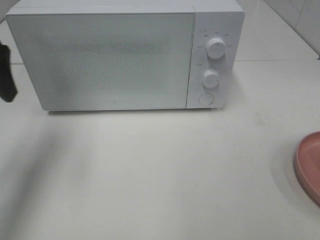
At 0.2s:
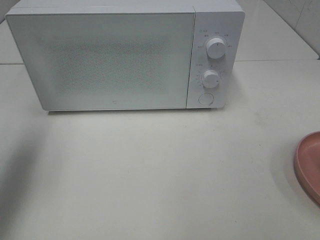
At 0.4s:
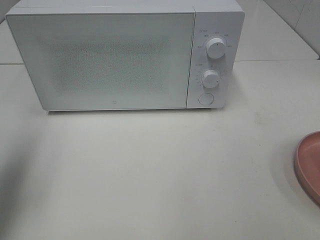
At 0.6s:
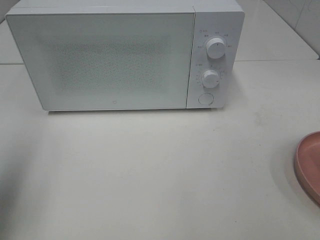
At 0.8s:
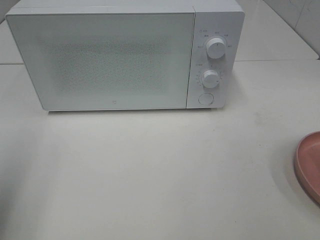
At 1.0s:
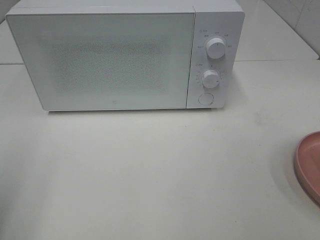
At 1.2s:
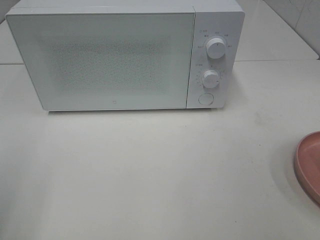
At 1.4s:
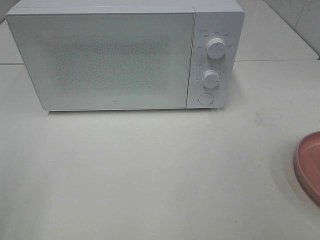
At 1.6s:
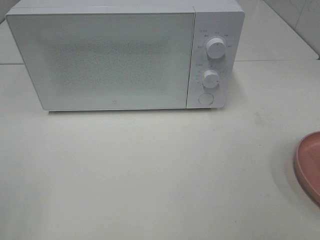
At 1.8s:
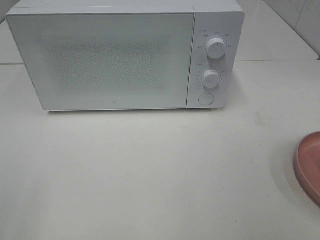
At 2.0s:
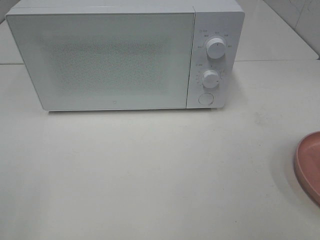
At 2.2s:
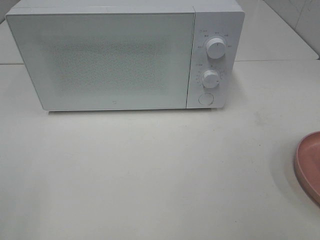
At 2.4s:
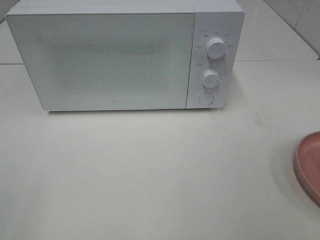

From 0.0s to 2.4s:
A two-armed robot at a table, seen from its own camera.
Task of the whole recording: Heat the burger.
From 0.0s to 1.2s: The left gripper goes approximately 20 cm backward.

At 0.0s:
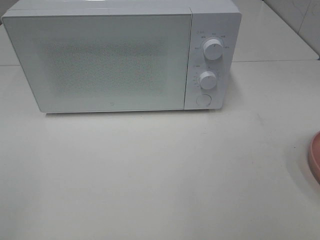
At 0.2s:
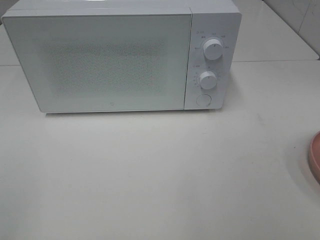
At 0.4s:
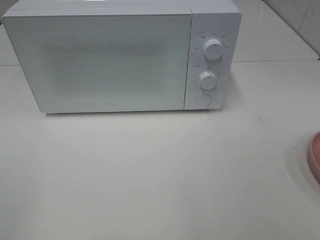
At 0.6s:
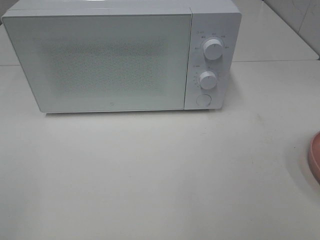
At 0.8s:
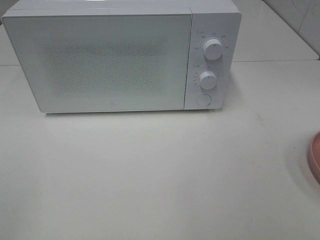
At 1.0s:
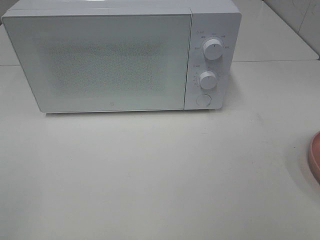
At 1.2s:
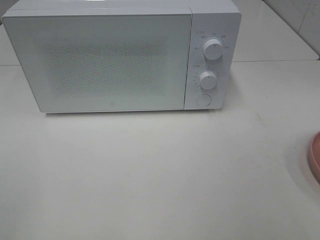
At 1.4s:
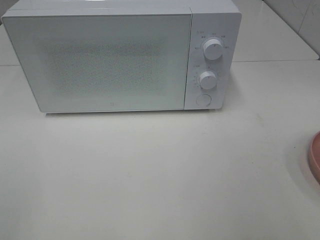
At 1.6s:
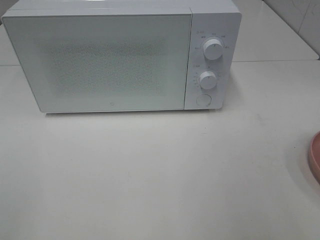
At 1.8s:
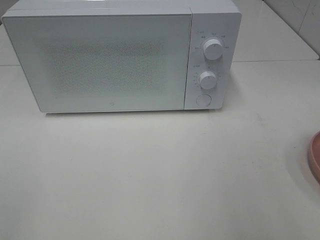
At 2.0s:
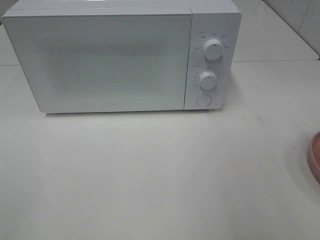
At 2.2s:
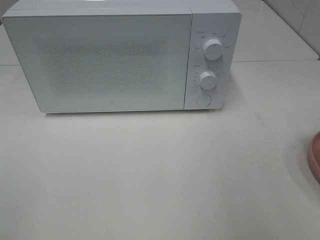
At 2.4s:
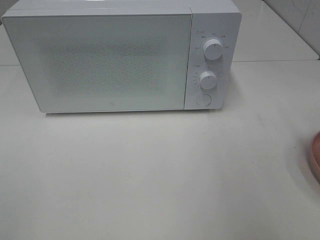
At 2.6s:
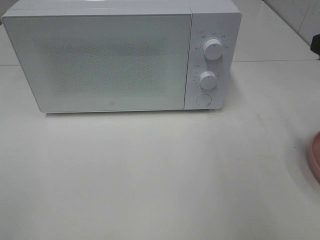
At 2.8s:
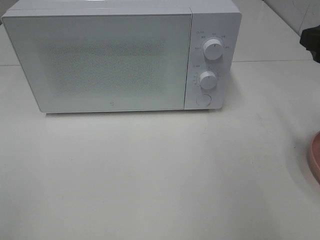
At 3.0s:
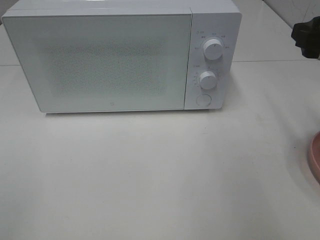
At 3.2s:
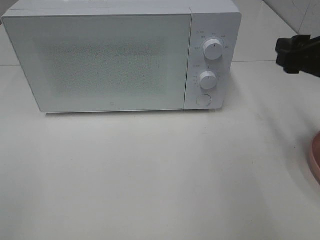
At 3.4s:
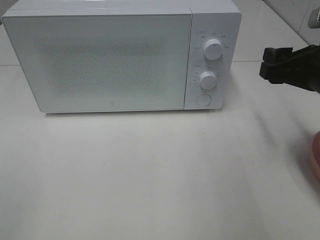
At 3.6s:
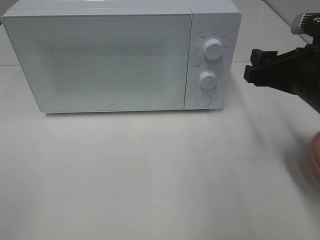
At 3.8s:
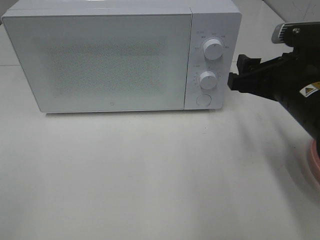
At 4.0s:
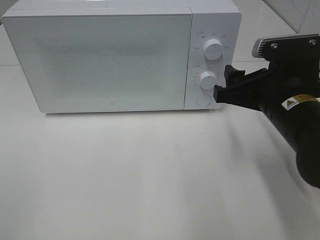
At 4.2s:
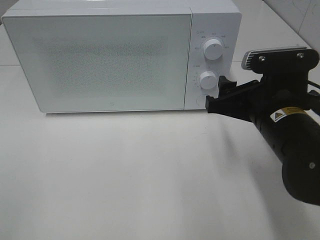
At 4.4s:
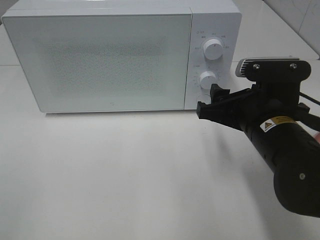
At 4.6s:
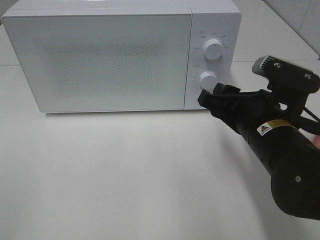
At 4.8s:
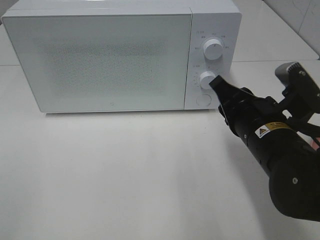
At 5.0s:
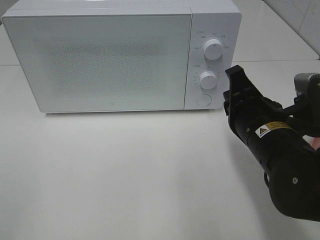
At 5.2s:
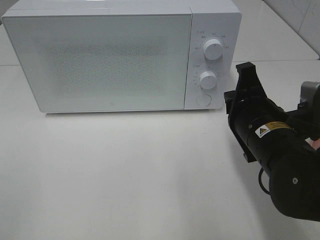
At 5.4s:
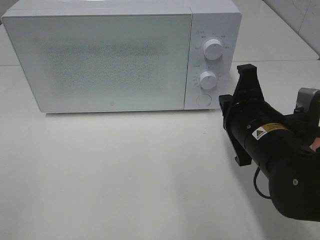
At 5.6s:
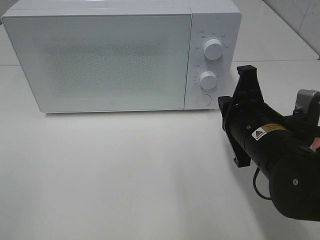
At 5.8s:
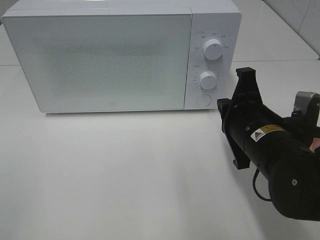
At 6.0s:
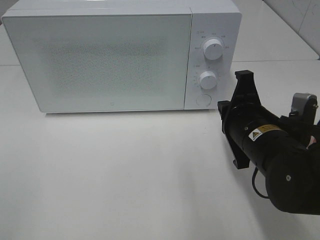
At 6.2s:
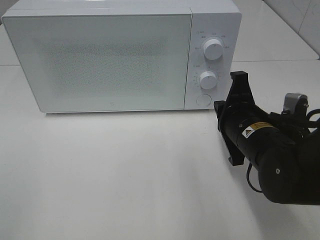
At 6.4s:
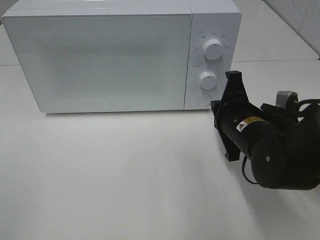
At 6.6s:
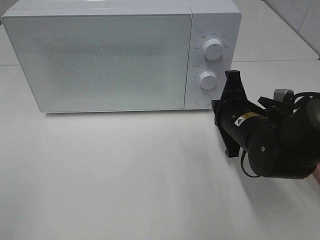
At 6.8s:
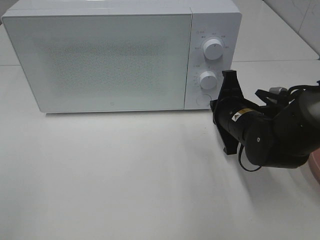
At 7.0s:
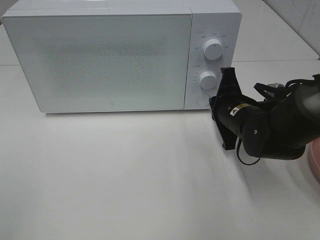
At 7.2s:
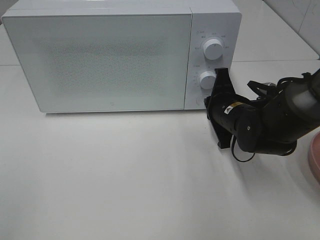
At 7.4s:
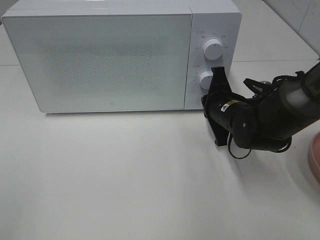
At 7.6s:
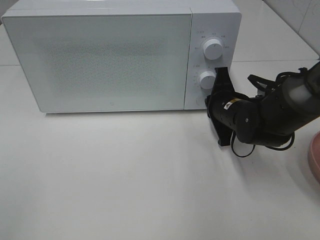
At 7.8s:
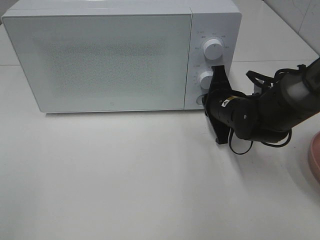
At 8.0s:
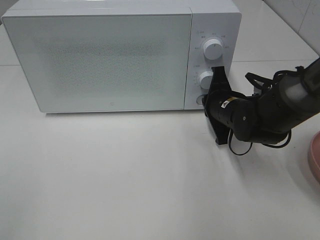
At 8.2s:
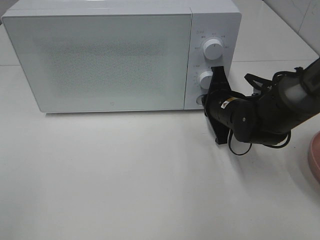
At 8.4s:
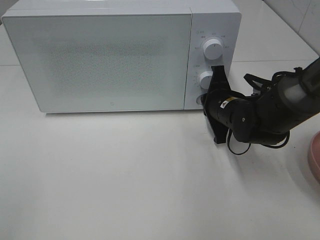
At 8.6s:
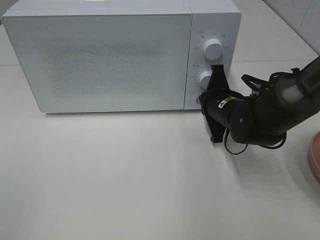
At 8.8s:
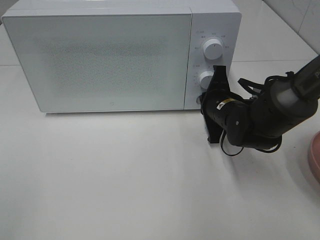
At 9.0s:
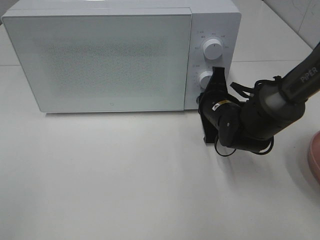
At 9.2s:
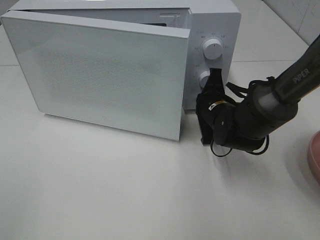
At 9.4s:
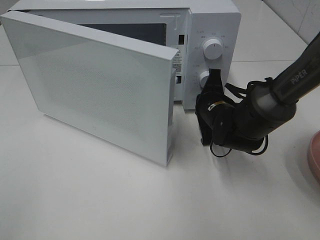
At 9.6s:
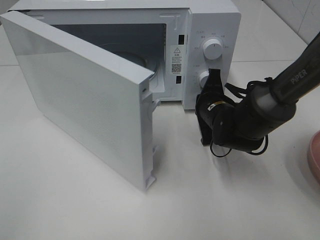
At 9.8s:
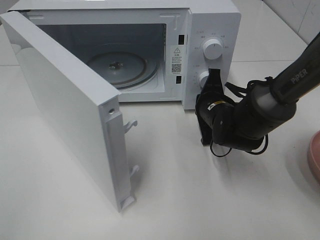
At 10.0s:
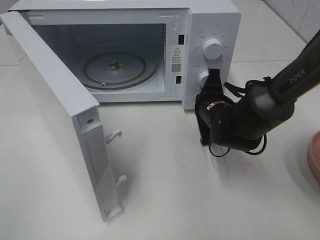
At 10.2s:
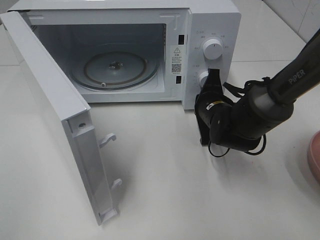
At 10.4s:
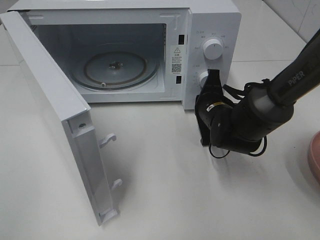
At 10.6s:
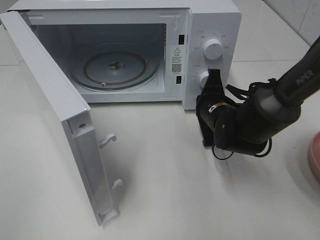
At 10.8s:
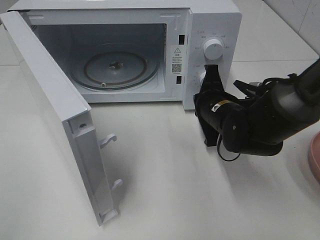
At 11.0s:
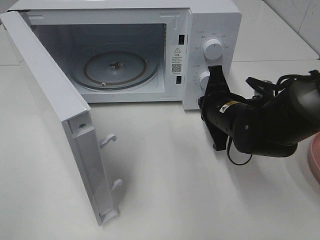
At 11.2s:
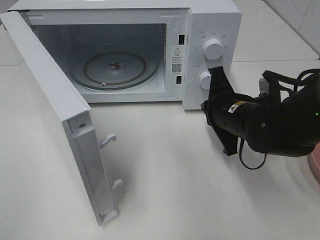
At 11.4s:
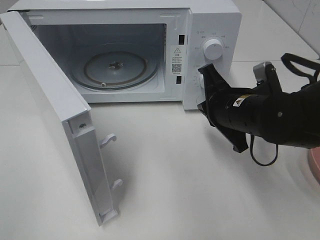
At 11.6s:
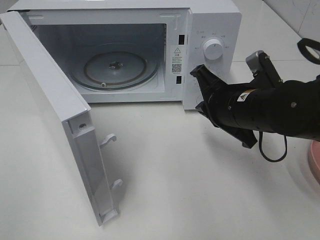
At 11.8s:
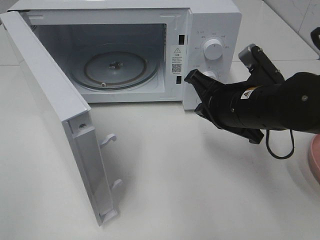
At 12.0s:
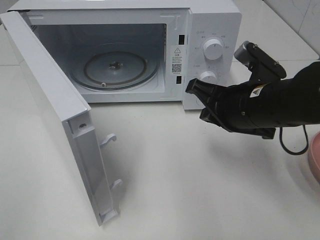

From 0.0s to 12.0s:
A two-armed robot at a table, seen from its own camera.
Task of the whole recording: Heat the burger.
Step, from 0.0s to 10.6s: Right hand: press the switch.
From 1.6s to 3.0s: The right gripper is displaced forward by some 15 cm.
From 3.0s to 4.4s: The right gripper shifts roughly 15 cm to the left and downward.
From 4.4s to 6.0s: The right gripper closes its fingers.
From 6.0s to 7.6s: The right gripper goes about 10 cm forward.
From 7.6s to 9.0s: The grippers stay close to where they were, moving slightly.
From 10.4s to 12.0s: The right gripper is displaced upward and backward by some 15 cm.

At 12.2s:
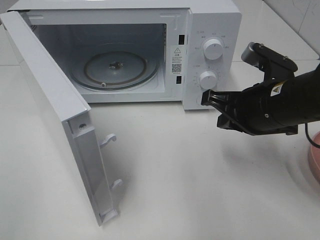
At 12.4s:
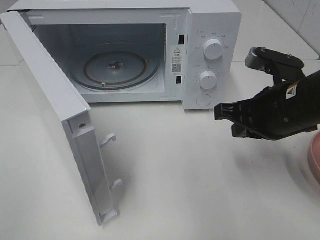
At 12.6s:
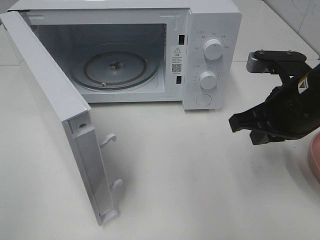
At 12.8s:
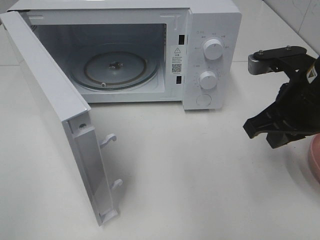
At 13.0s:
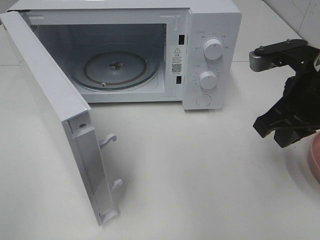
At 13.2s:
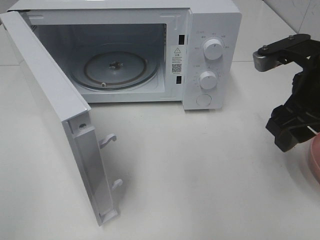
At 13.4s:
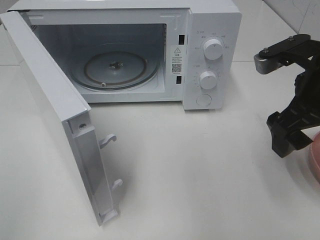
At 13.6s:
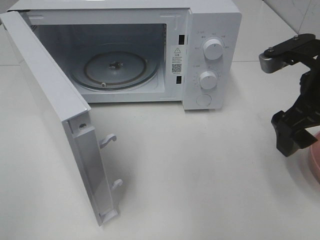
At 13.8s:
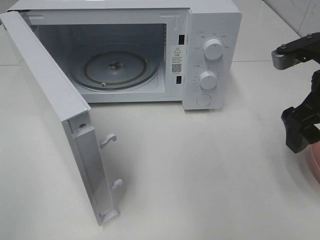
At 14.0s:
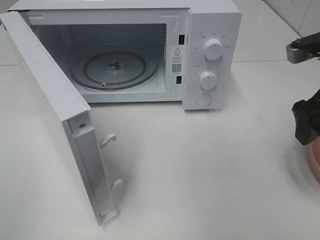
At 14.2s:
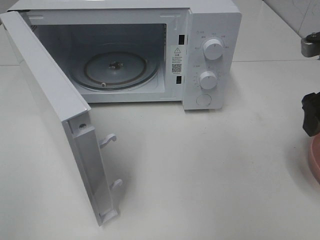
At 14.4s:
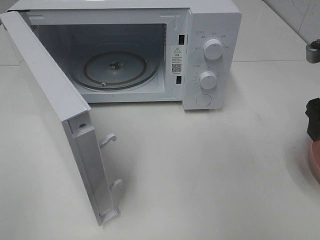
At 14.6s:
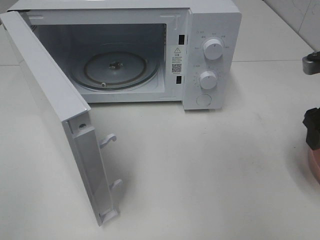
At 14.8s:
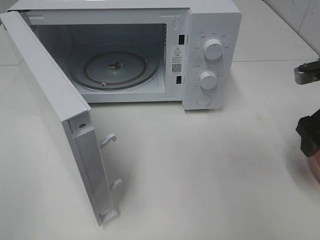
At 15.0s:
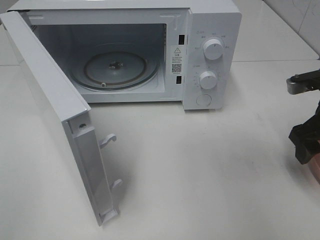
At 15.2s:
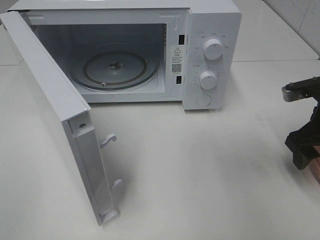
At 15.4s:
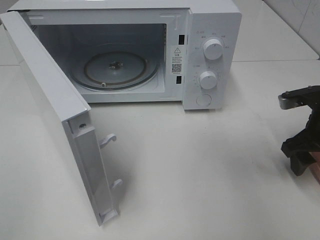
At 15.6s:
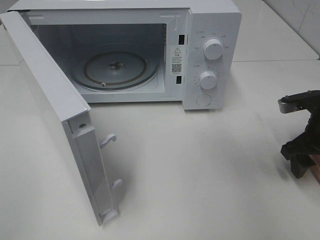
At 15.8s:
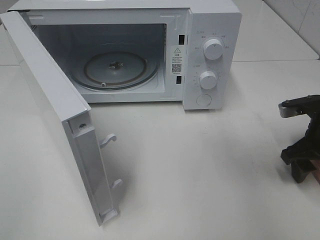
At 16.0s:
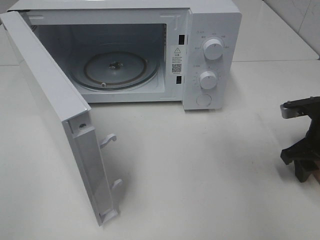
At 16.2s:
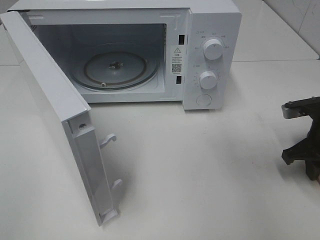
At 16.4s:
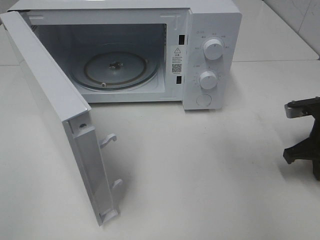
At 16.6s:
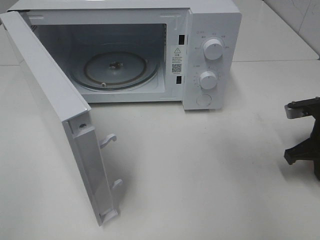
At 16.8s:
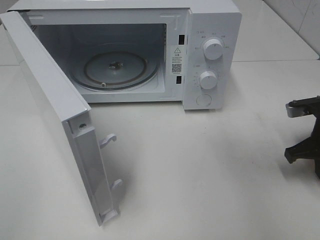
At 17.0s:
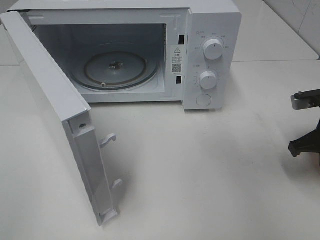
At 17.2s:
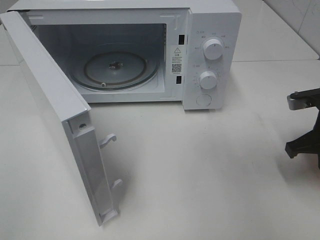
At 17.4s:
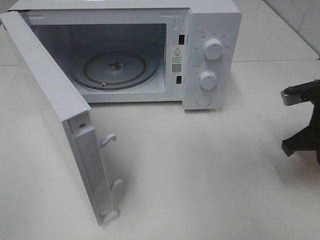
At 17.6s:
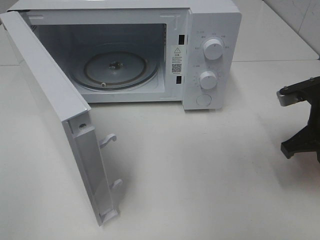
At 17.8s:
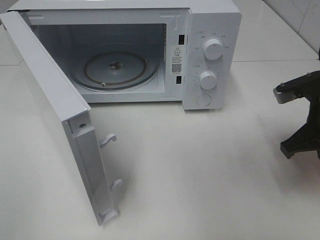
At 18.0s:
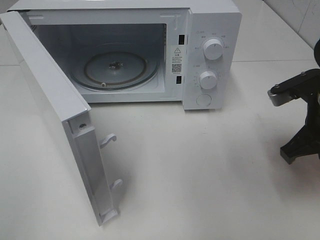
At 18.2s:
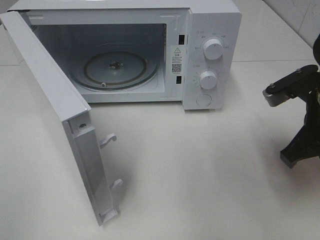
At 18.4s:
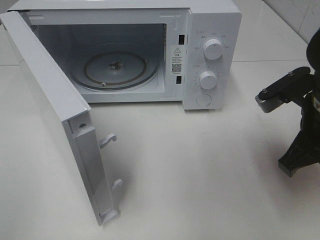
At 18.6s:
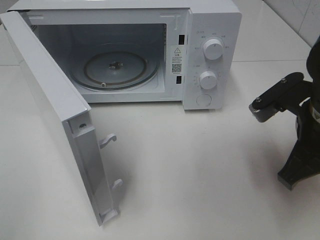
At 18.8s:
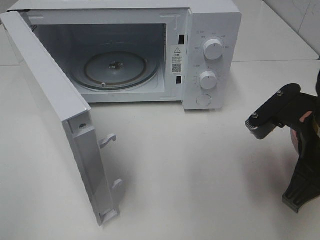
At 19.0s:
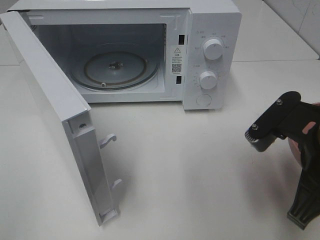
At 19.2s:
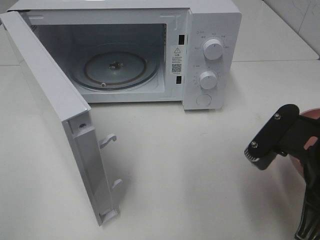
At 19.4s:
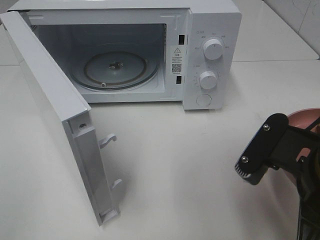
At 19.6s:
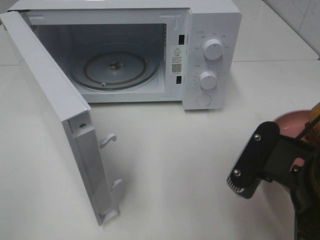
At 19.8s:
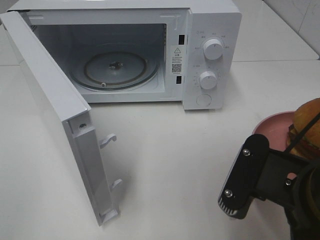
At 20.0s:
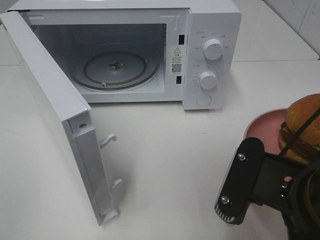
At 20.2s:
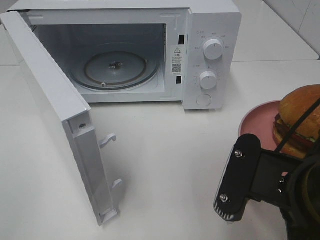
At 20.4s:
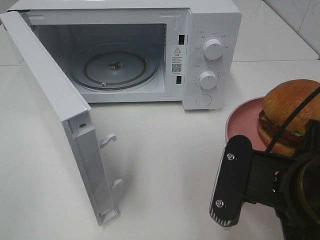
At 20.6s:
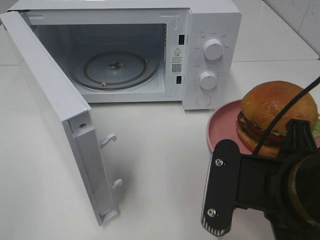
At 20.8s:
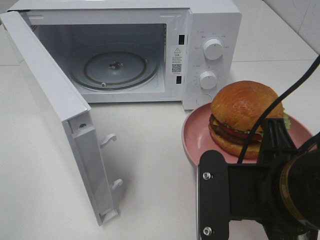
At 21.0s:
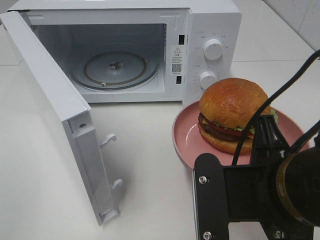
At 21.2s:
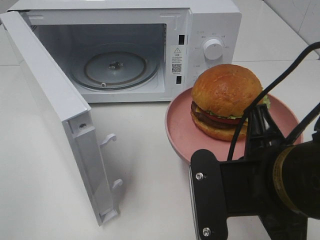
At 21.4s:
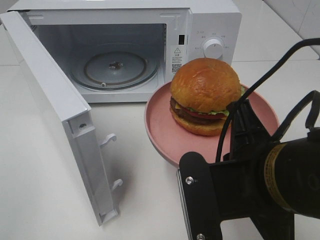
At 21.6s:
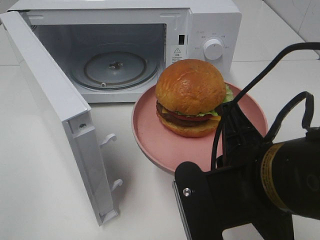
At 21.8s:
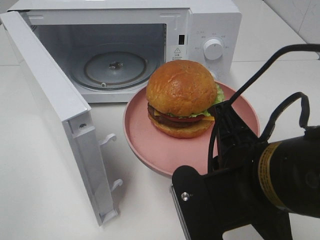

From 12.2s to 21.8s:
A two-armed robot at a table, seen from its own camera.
Task of the whole recording: Heat the burger.
Step, from 12.2s to 16.6s: Right hand: grab the plate with the hamburger.
From 12.2s to 13.8s: The right gripper shifts some 10 cm to the right and upward, and opens.
From 13.8s to 15.4s: The right gripper goes some 15 cm downward and to the right.
From 15.4s to 17.0s: The right gripper closes.
From 17.0s to 18.6s: The right gripper heads to the left, backward and upward, covering about 15 cm.
From 18.6s to 20.2s: The right gripper travels backward and to the left by roughly 10 cm.
